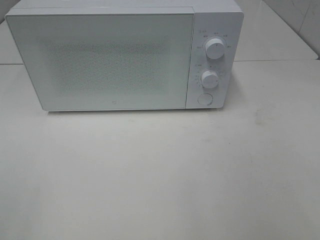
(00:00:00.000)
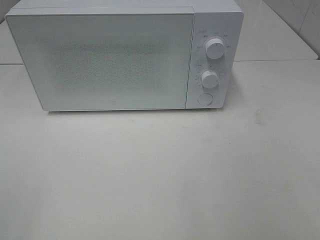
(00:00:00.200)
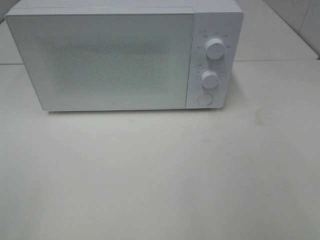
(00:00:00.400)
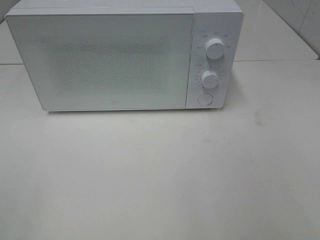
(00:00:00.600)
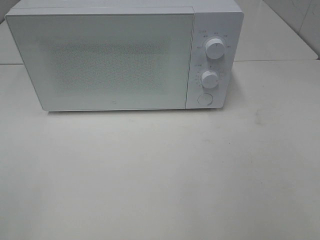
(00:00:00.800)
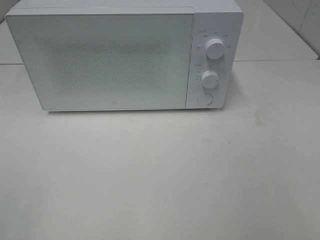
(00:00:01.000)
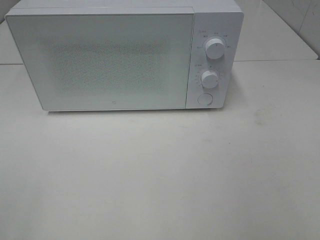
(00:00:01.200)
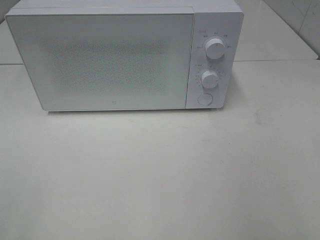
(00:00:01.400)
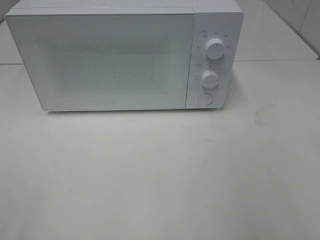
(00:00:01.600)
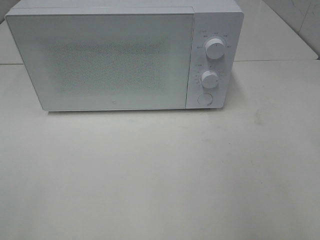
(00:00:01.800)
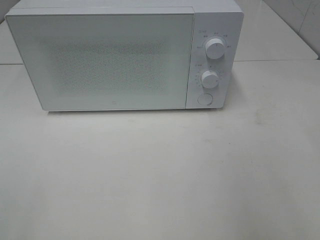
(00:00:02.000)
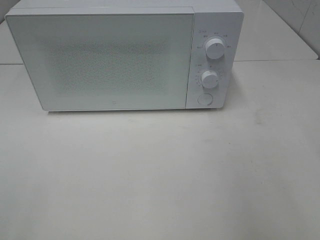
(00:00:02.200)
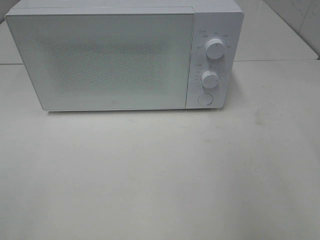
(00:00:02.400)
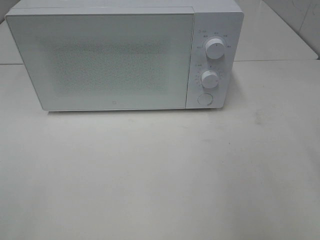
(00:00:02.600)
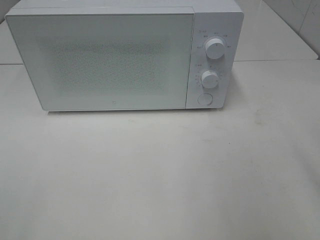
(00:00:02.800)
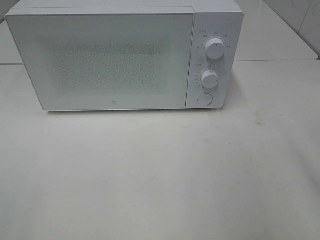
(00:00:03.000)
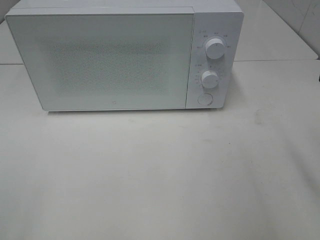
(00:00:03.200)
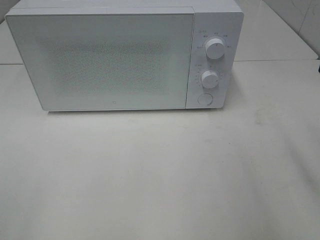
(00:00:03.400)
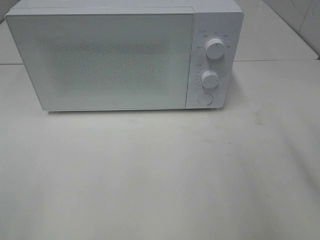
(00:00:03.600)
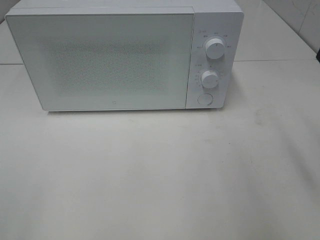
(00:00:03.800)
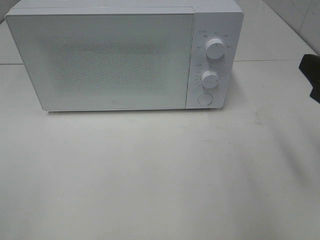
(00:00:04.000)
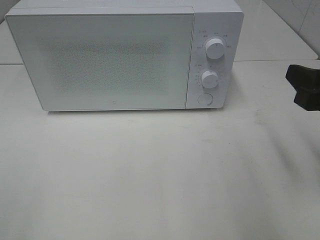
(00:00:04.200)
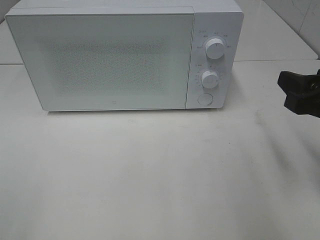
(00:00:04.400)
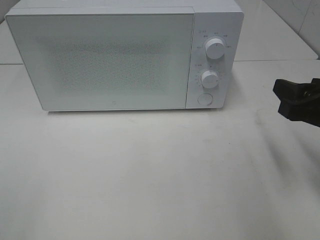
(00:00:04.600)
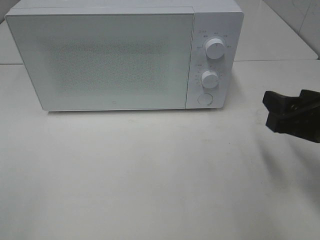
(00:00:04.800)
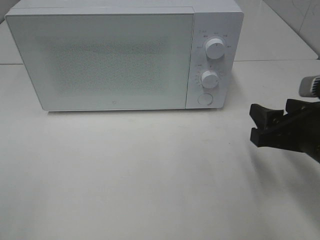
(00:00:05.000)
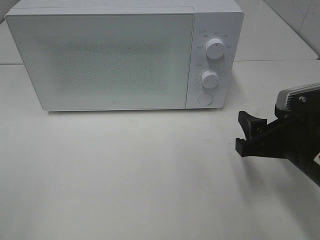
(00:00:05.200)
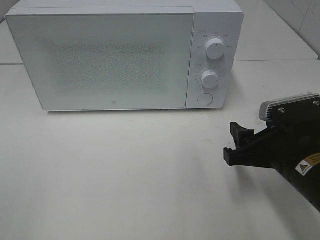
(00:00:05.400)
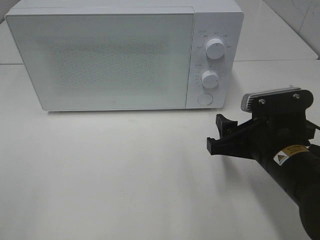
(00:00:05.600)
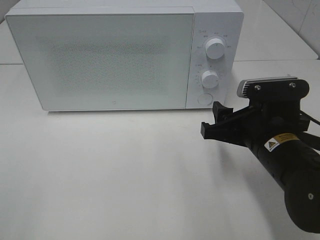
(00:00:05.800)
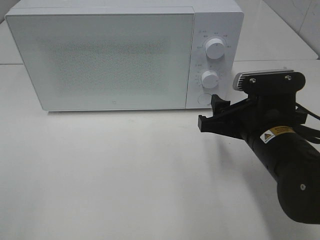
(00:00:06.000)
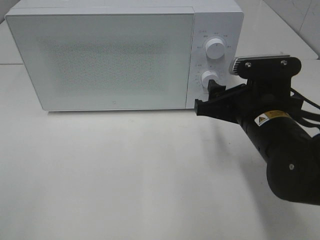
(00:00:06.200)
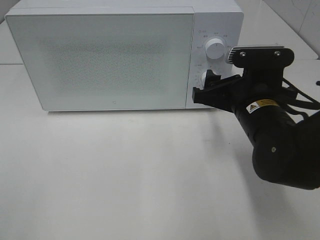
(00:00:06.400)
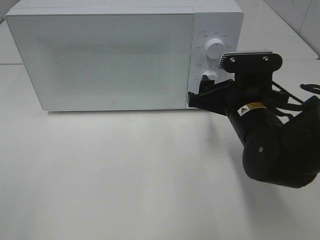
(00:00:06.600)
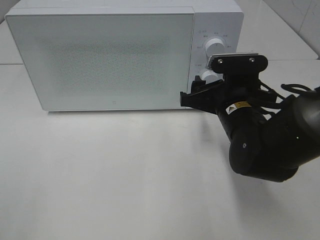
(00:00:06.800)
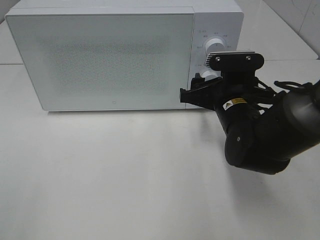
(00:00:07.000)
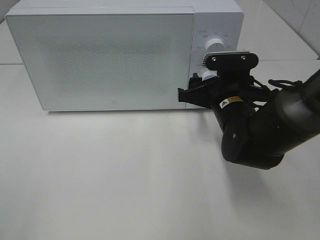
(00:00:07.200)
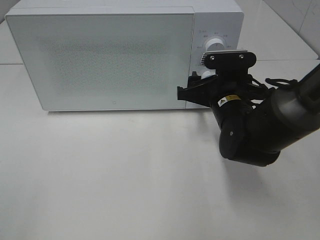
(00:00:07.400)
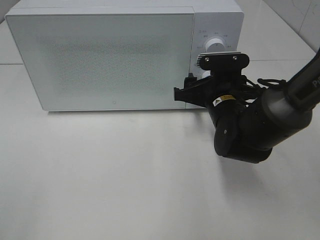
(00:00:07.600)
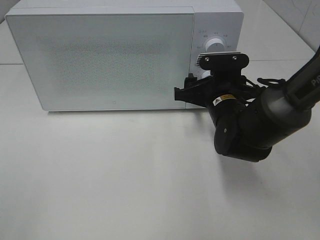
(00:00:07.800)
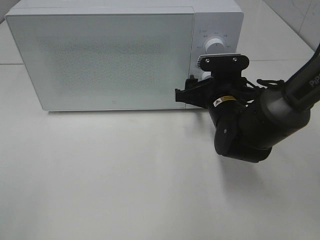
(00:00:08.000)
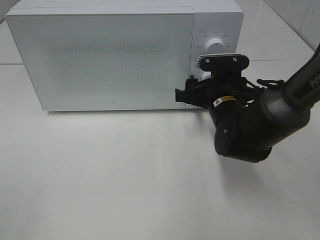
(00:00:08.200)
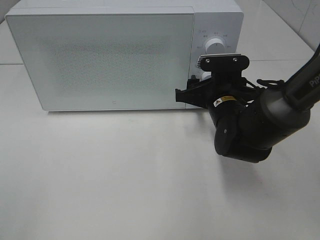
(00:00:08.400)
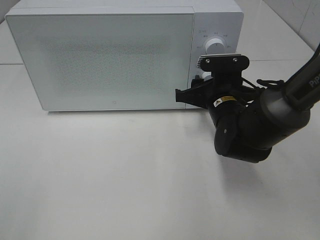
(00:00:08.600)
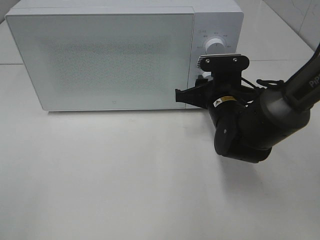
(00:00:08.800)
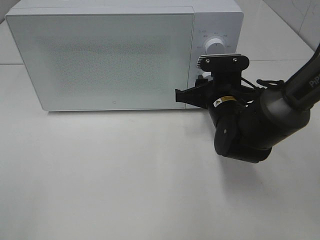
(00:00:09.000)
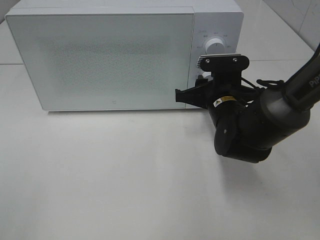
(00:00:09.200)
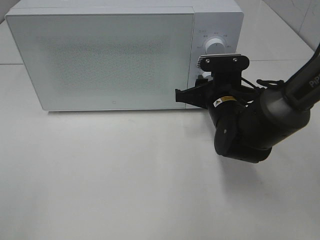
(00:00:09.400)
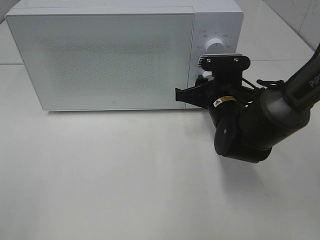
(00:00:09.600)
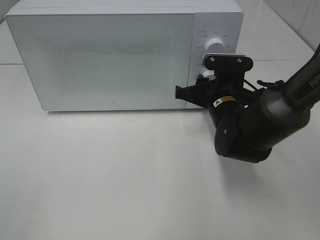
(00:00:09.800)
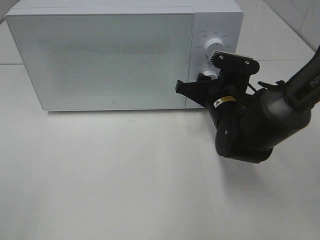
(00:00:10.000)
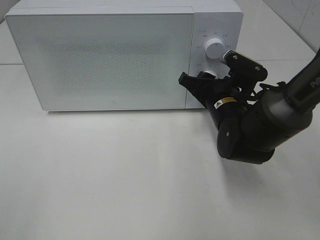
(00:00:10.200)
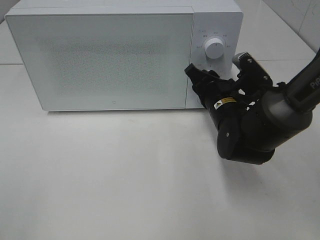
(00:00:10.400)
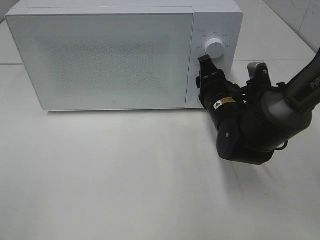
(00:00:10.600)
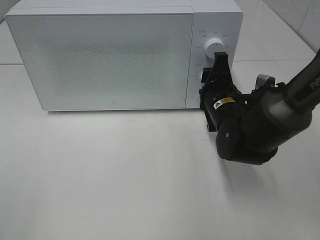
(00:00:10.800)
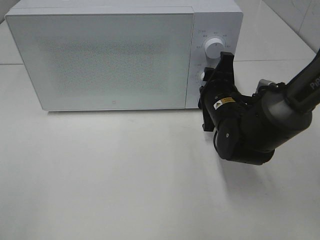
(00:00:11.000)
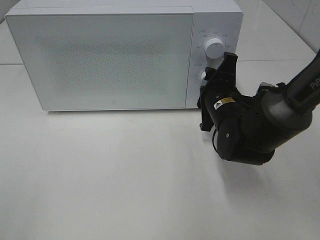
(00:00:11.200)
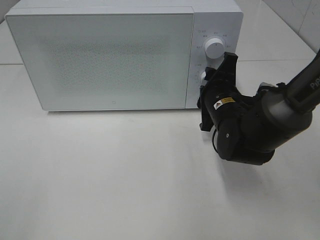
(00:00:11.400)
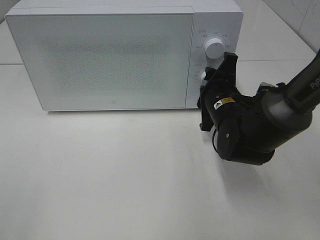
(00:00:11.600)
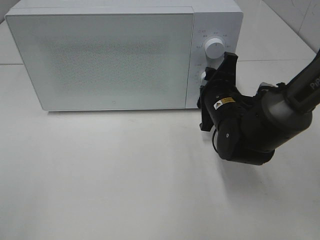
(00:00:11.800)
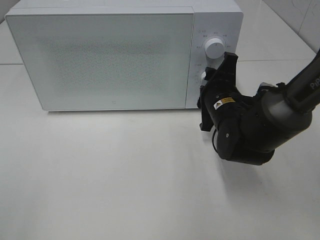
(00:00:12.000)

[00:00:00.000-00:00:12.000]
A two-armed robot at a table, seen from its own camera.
Task of the whole recording: Heat the burger.
00:00:03.000 to 00:00:04.400: The right gripper shifts about 10 cm downward and forward.
00:00:04.400 to 00:00:06.000: The right gripper goes about 10 cm to the left and downward.
00:00:06.000 to 00:00:07.600: The right gripper shifts about 10 cm forward.
00:00:07.600 to 00:00:09.000: The right gripper closes.

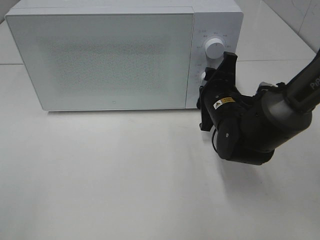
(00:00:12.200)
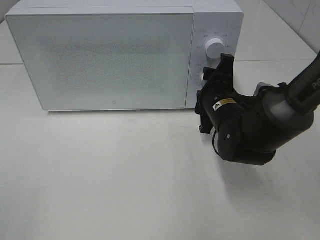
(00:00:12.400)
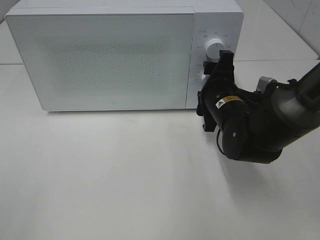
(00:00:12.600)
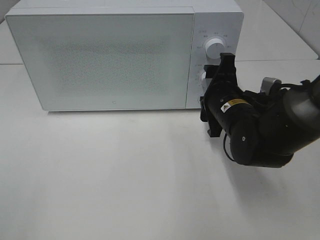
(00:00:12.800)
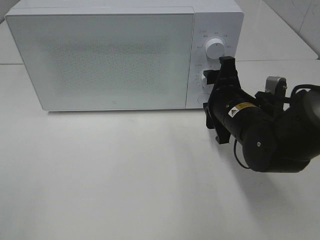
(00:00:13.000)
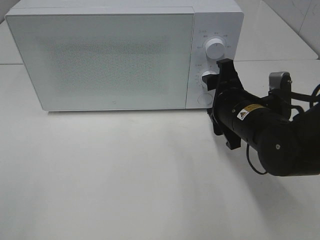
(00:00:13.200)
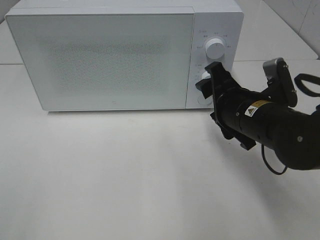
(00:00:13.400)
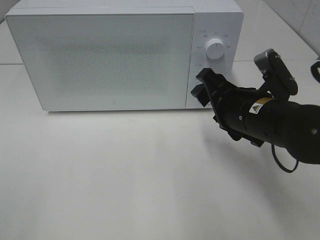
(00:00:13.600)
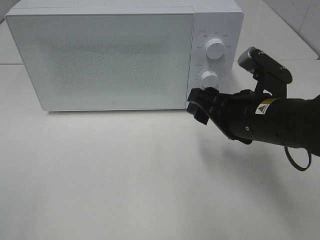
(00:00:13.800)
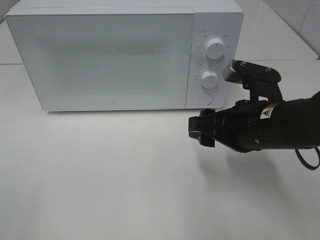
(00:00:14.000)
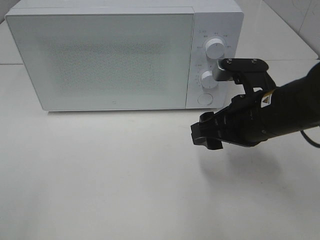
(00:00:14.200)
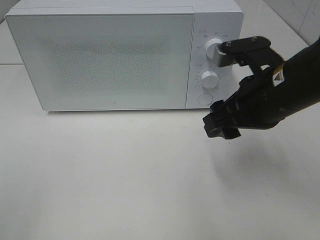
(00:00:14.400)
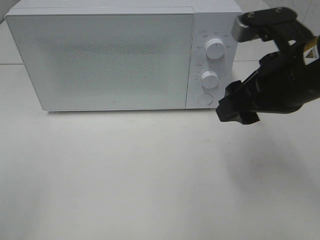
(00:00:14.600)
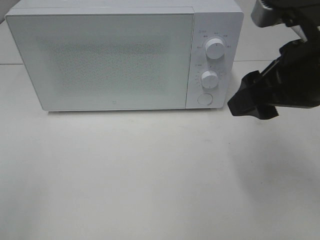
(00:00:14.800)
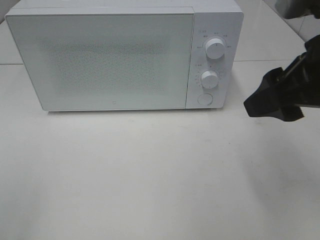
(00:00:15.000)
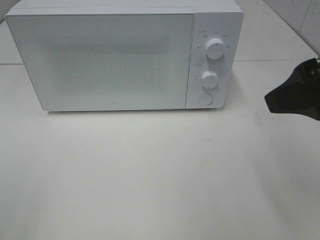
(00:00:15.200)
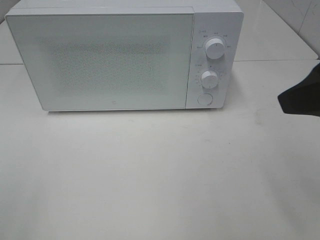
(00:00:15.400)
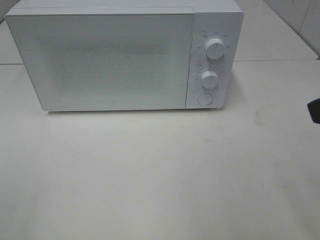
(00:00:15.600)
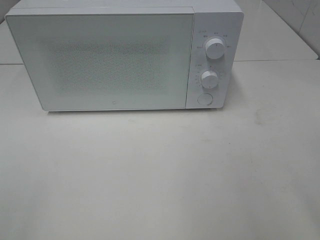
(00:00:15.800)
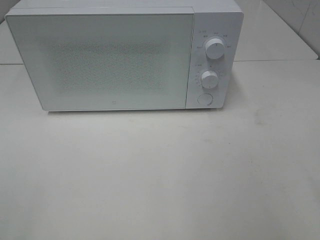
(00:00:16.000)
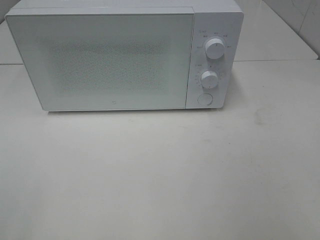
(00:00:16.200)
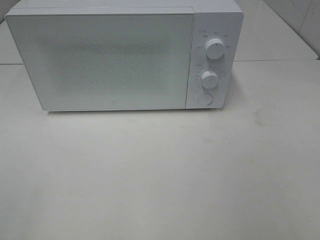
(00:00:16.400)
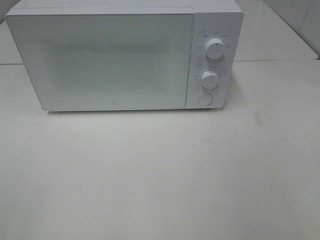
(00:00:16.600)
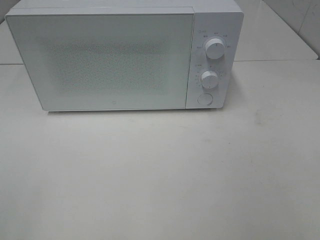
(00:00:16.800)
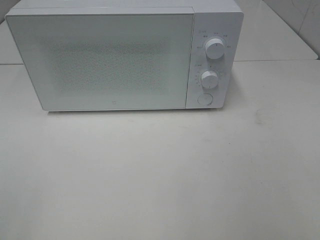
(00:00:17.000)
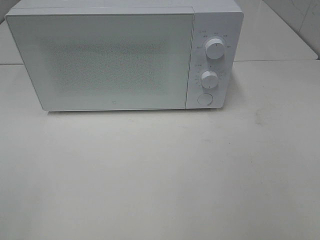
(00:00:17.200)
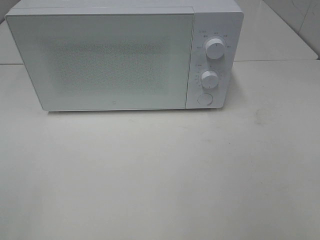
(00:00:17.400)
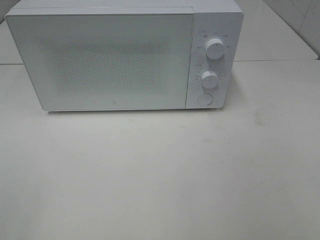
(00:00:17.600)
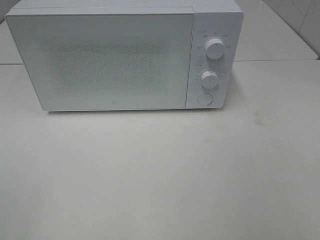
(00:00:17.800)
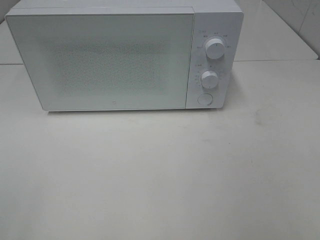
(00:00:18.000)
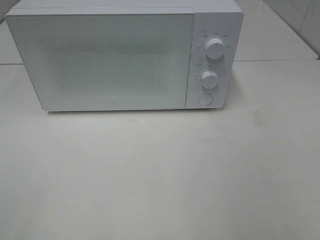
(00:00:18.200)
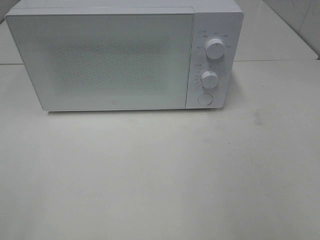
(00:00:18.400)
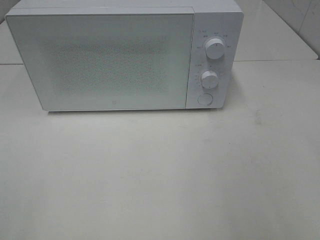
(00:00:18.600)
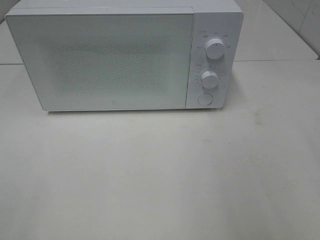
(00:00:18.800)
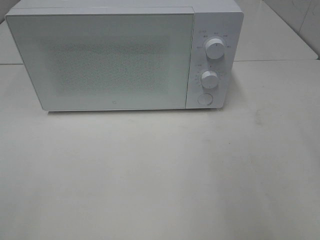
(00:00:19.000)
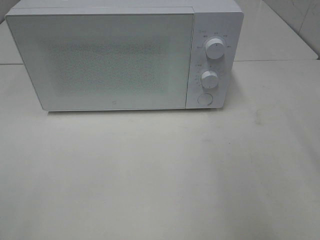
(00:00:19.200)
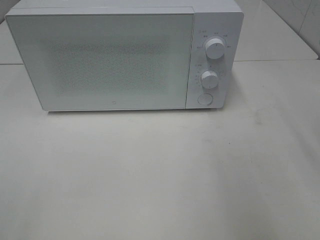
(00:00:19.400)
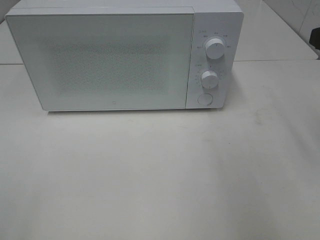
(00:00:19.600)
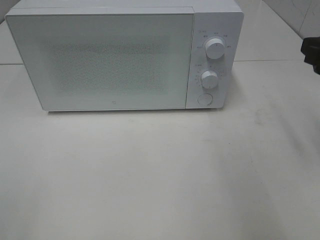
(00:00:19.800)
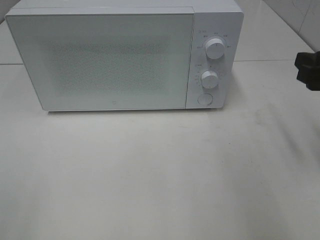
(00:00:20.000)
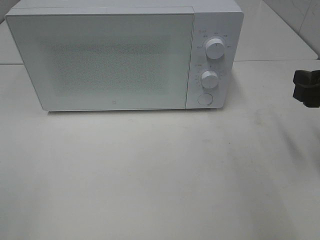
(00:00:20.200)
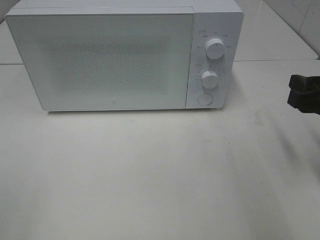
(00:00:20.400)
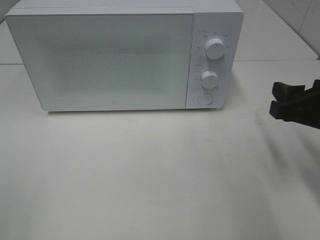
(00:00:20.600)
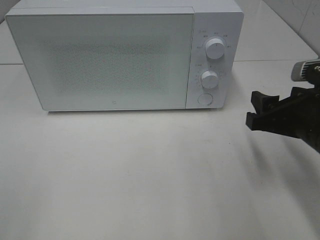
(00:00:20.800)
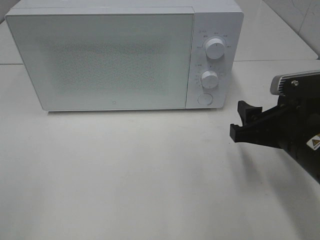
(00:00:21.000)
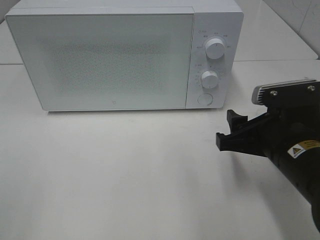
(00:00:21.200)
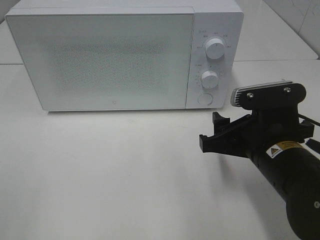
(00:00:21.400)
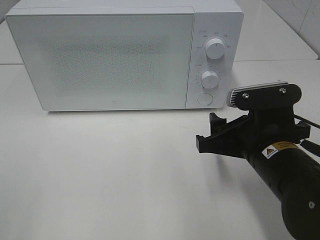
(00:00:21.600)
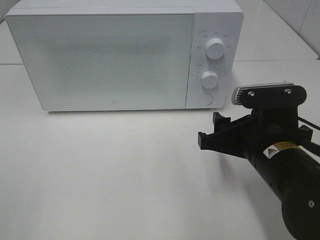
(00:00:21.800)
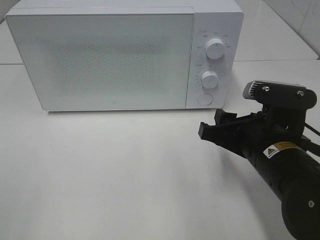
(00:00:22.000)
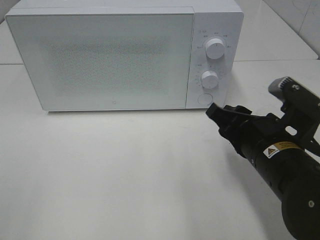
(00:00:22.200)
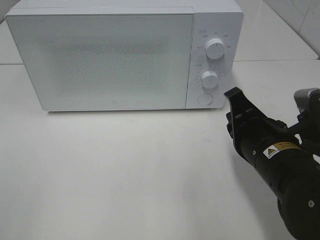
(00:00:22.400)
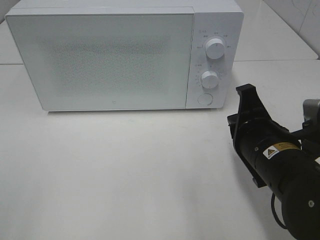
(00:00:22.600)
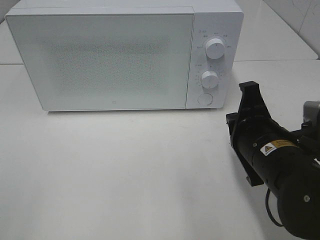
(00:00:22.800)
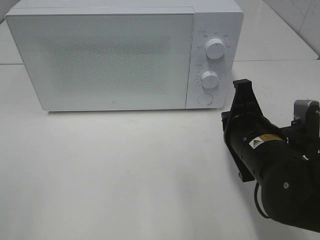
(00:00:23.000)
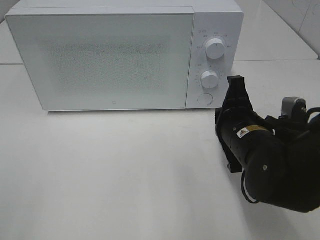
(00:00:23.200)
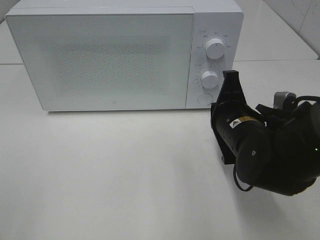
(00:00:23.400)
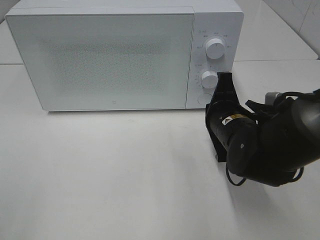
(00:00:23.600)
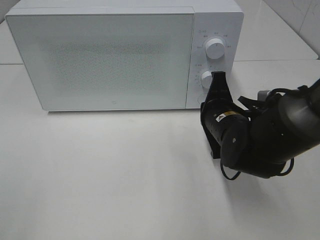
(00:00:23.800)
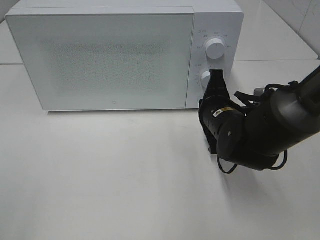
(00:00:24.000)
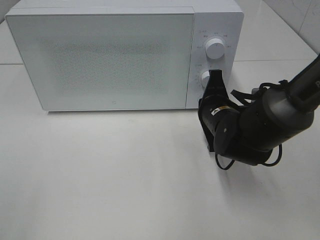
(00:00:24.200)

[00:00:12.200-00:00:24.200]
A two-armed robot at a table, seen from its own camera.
Task of the whole recording: Heat the burger.
00:00:12.200 to 00:00:13.800: The right gripper heads backward and upward, covering about 10 cm.
00:00:13.800 to 00:00:15.200: The right gripper goes roughly 15 cm upward and backward.
00:00:15.200 to 00:00:16.600: The right gripper is displaced backward and to the right by some 15 cm.
00:00:18.200 to 00:00:19.800: The right gripper goes about 20 cm forward.
00:00:19.800 to 00:00:21.200: The right gripper moves to the left and downward, some 15 cm.
00:00:21.200 to 00:00:22.600: The right gripper closes up.
00:00:22.600 to 00:00:24.200: The right gripper is displaced forward by about 10 cm.
